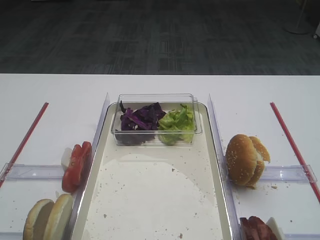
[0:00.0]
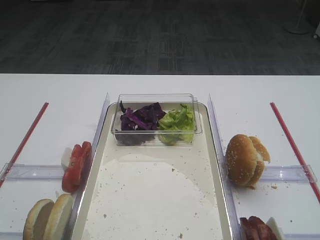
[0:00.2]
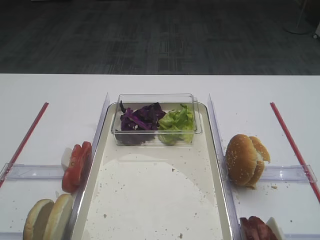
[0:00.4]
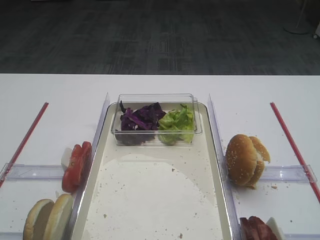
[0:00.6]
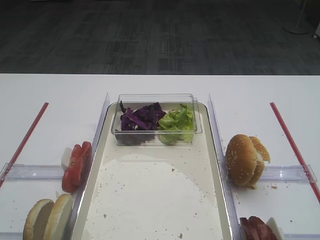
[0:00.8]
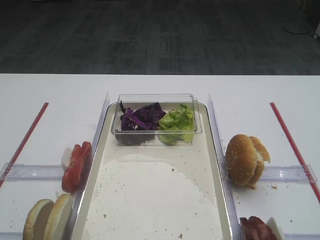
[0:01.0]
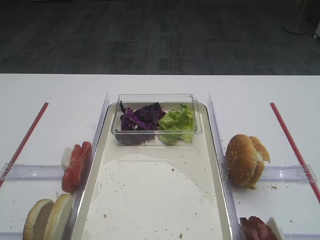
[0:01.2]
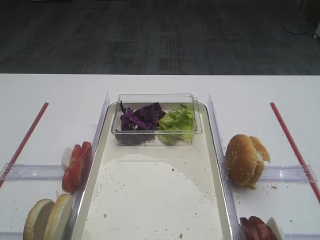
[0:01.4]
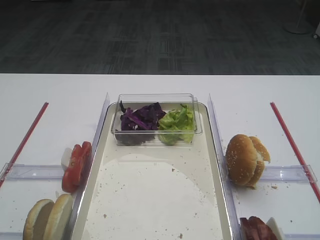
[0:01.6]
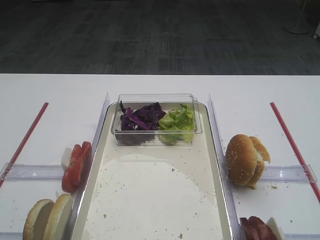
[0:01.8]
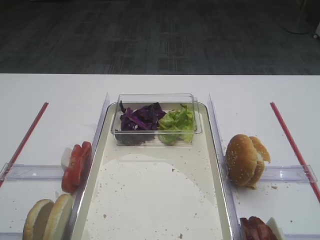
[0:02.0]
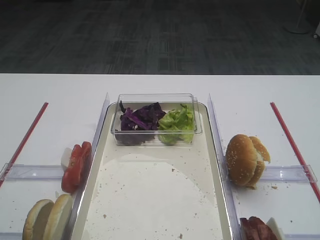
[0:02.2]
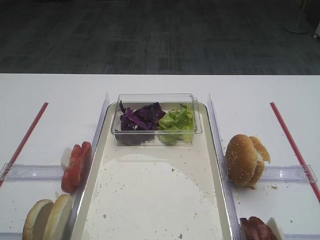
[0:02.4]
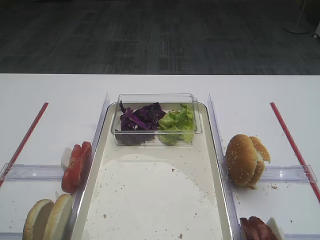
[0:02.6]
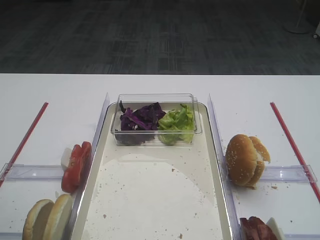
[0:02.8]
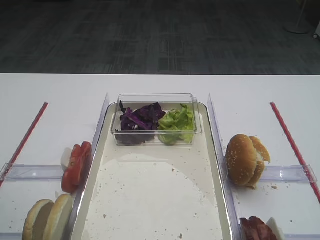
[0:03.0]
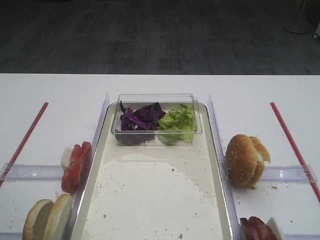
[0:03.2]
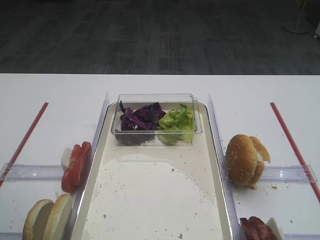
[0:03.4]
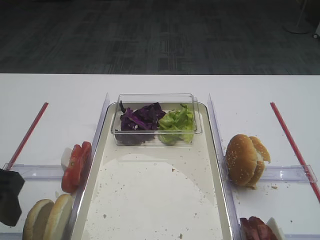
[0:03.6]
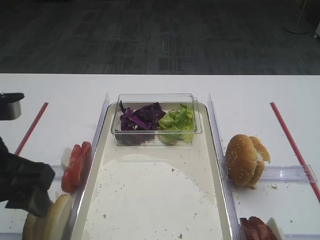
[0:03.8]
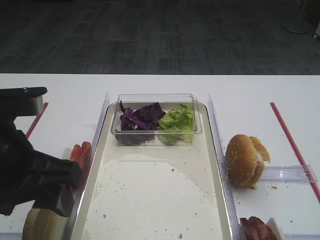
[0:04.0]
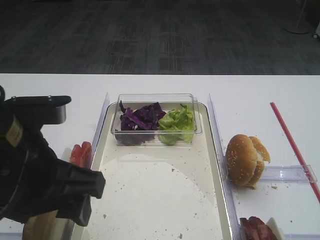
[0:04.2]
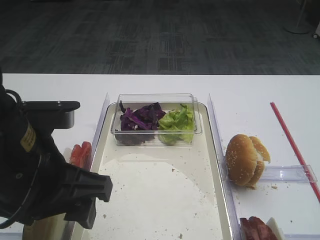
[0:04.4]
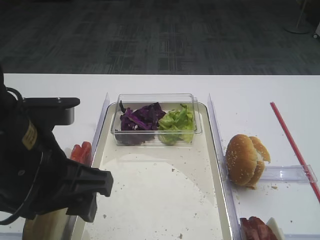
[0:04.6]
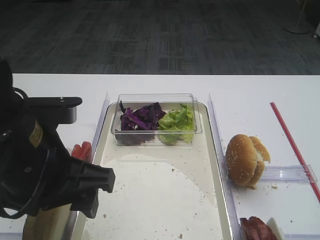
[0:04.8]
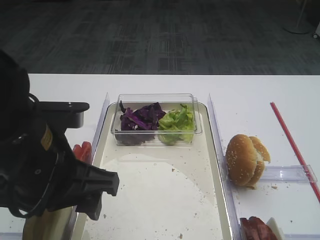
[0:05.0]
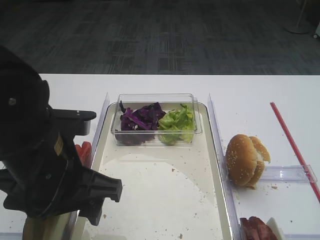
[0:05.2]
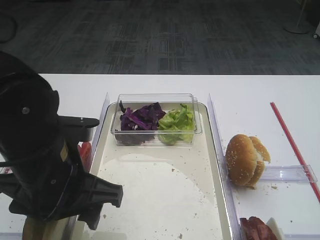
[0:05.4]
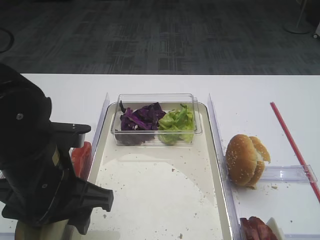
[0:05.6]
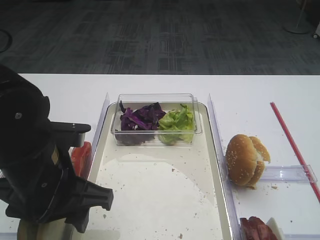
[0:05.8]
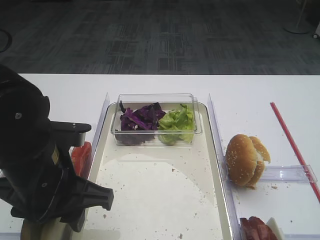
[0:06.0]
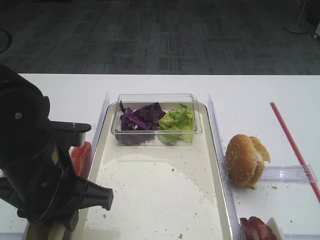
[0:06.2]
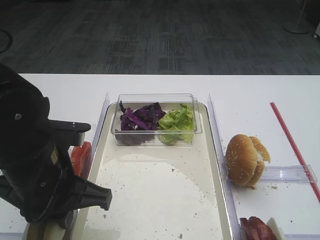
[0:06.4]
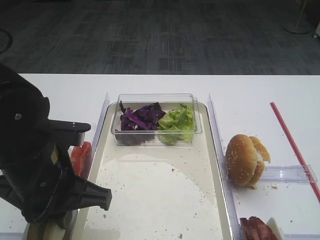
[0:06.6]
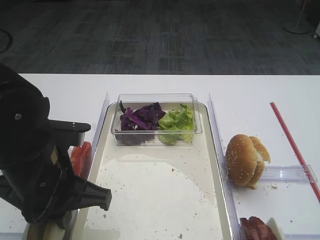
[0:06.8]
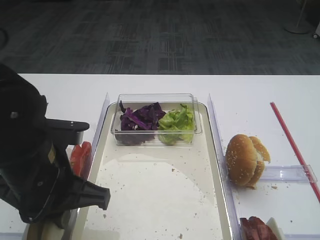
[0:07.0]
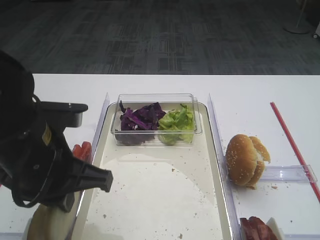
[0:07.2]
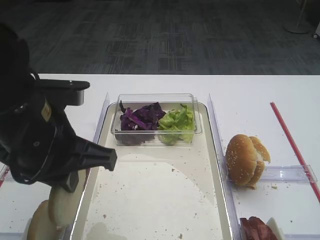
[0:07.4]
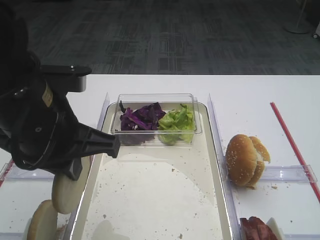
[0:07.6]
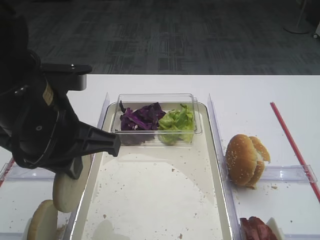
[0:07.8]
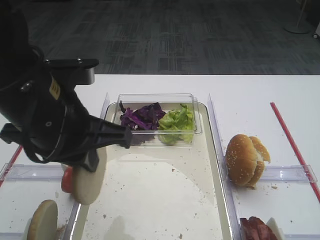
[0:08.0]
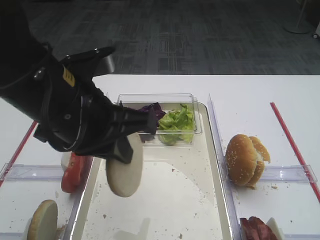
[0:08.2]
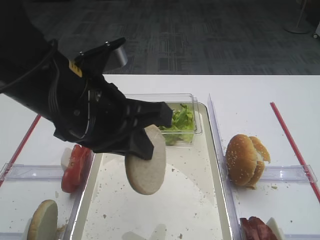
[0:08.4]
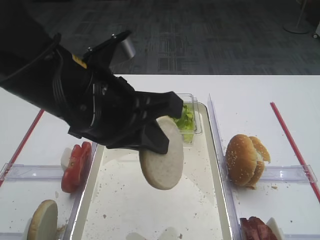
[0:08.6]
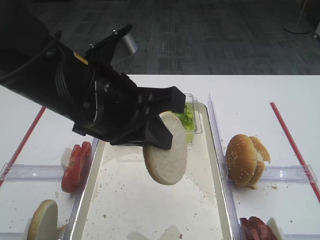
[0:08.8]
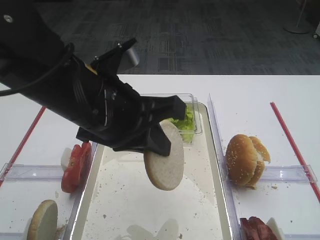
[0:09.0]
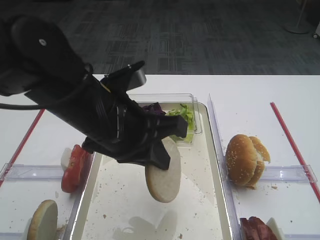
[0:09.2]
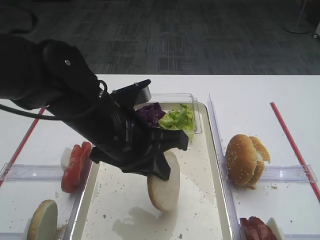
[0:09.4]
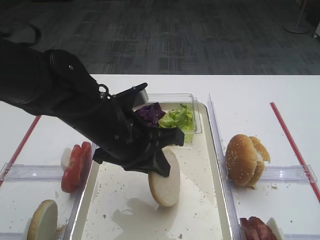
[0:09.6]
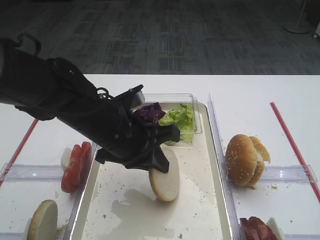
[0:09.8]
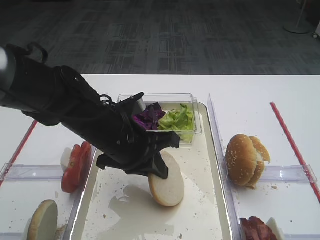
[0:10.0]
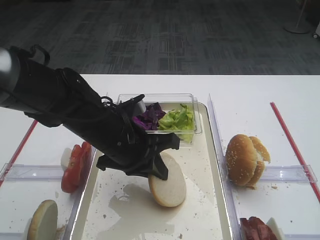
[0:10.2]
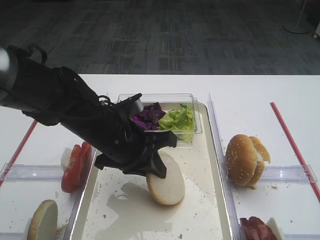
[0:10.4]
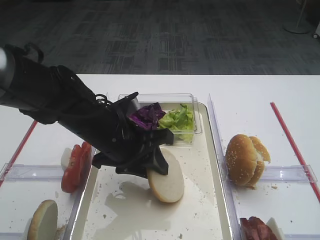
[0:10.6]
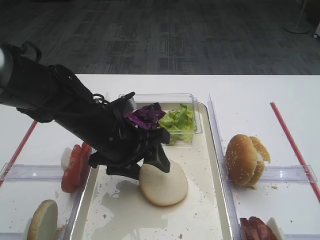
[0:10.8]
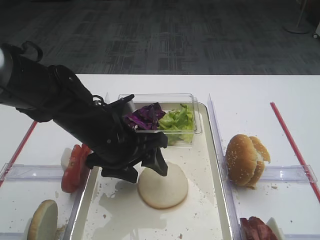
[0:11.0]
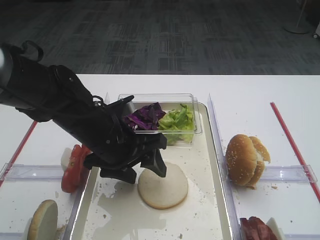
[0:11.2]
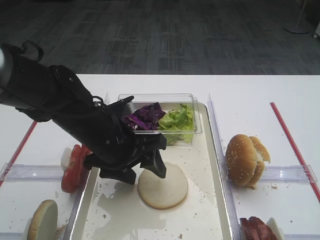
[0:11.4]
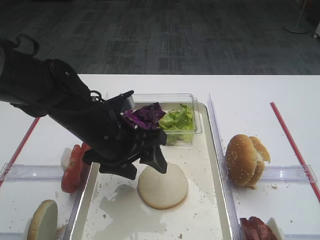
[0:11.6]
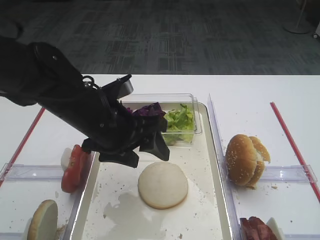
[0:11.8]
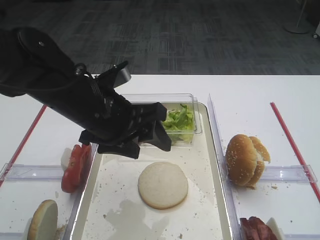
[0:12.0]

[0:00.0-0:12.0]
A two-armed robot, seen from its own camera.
Step, 0.0 to 7.6 s: Pick up the bread slice with the left gripper.
3.0 to 4.4 s: The left gripper shifts about 15 cm to the right.
4.4 to 6.0 s: The left gripper goes some 5 cm downward, and closes up.
6.0 to 7.6 s: The left gripper is displaced upward by some 5 cm, and closes up.
7.6 to 9.0 s: The left gripper goes some 5 cm to the right.
9.0 to 10.4 s: The left gripper travels downward and forward by some 15 cm.
10.4 to 12.0 s: The left gripper heads upward, covering some 5 cm, and opens up.

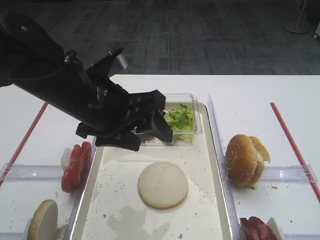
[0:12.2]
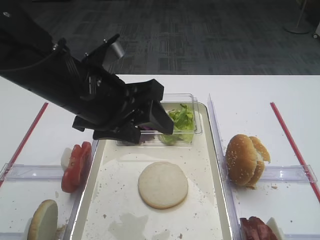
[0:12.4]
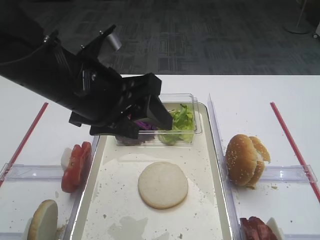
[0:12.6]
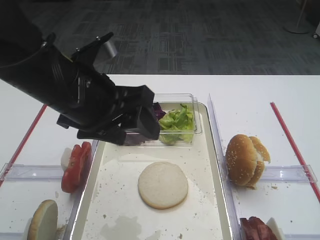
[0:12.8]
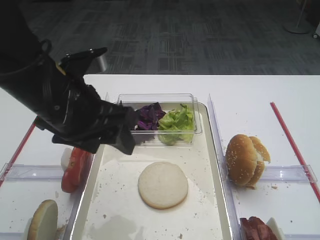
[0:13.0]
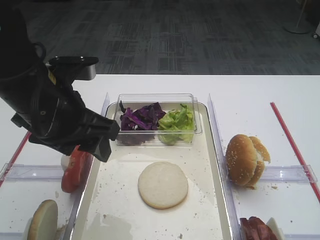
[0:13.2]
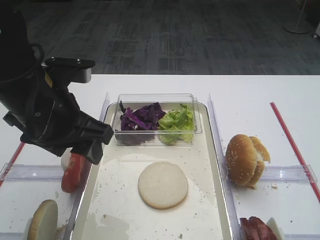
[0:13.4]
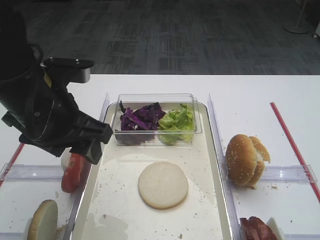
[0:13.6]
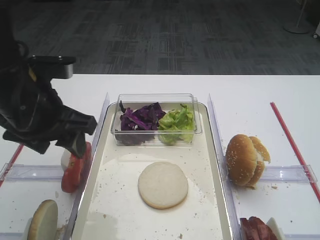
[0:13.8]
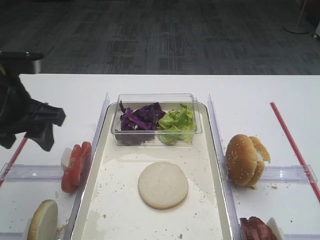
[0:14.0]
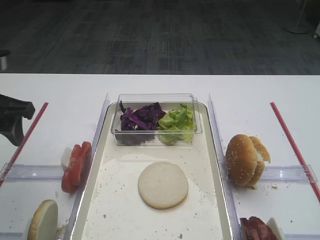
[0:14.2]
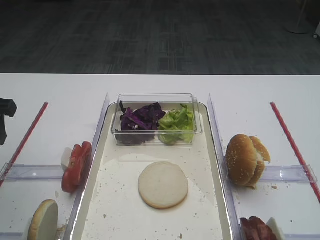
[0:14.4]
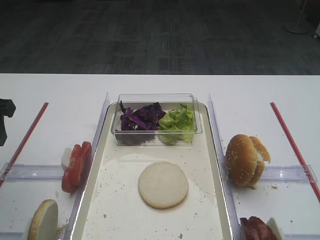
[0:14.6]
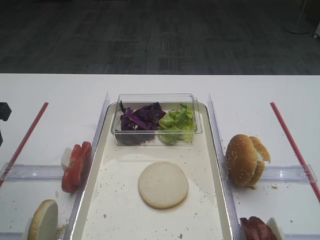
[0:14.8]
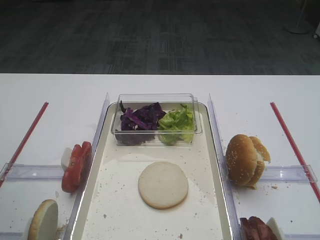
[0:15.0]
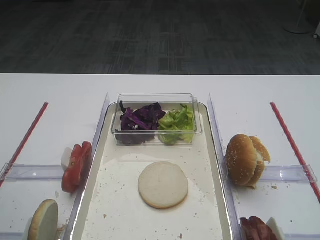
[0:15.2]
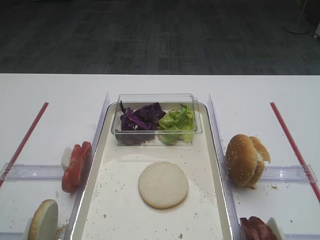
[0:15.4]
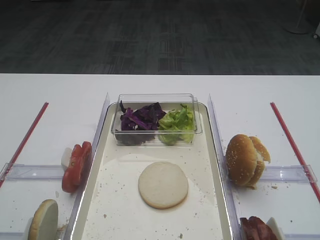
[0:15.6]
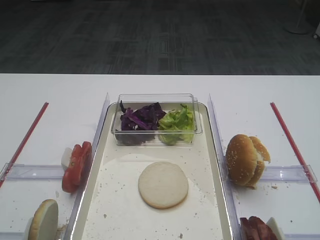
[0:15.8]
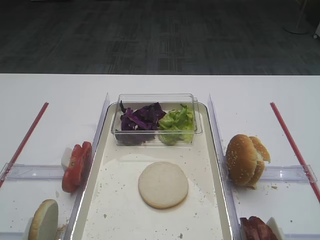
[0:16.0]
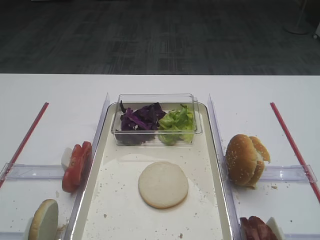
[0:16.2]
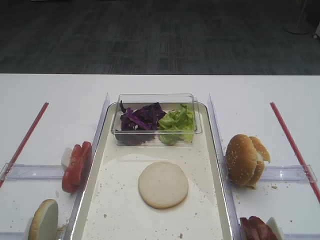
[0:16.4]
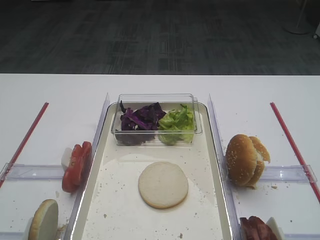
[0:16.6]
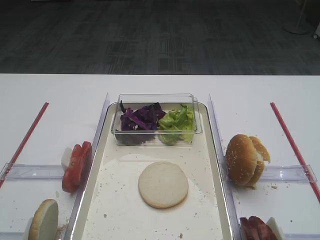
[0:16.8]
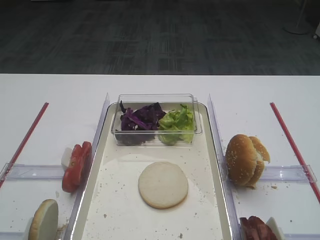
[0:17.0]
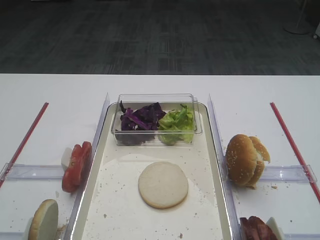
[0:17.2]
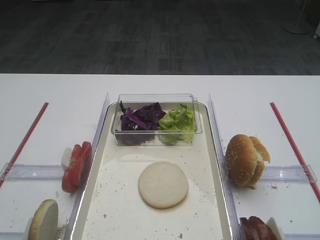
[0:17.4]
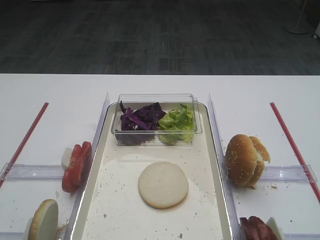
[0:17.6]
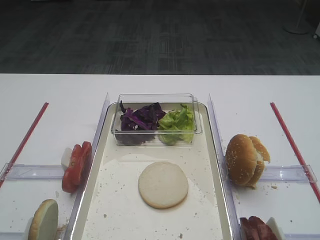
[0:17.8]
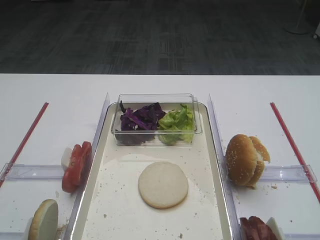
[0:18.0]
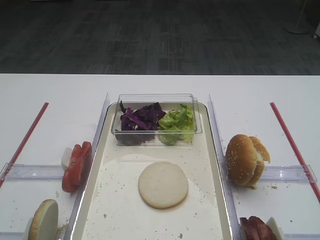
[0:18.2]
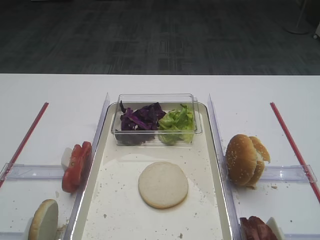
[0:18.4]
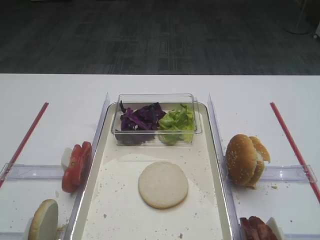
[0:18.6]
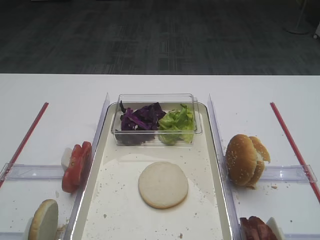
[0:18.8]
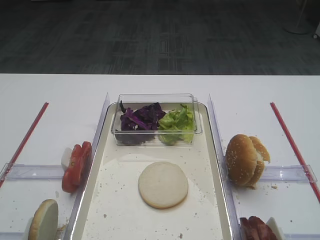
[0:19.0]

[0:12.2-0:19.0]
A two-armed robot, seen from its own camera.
12.2 to 13.6 s: The left gripper moves to the left, approximately 5 cm.
13.6 to 15.0 s: The left gripper shifts some 15 cm to the left.
15.0 to 16.2 s: The left gripper heads backward, covering roughly 20 cm.
17.6 to 19.0 s: Neither gripper changes place.

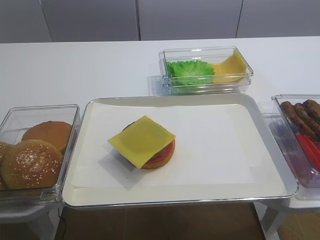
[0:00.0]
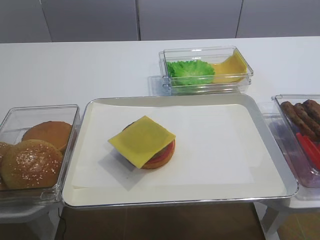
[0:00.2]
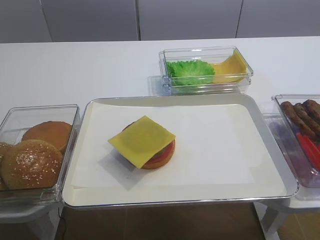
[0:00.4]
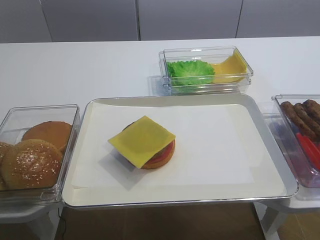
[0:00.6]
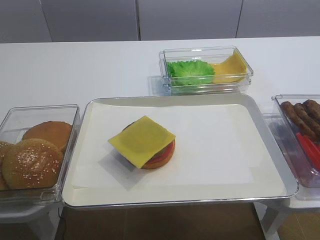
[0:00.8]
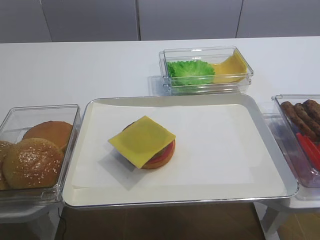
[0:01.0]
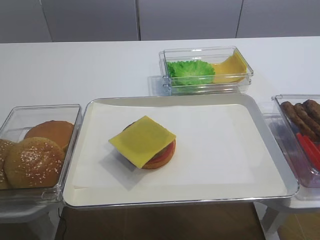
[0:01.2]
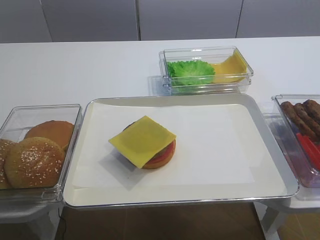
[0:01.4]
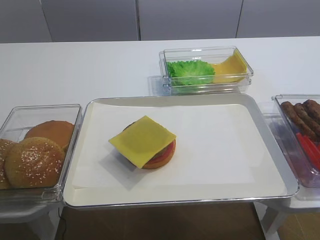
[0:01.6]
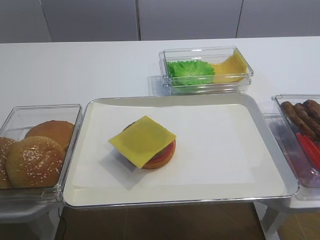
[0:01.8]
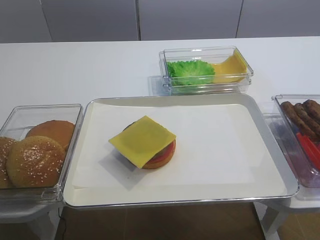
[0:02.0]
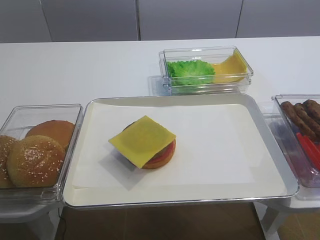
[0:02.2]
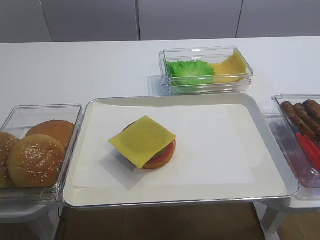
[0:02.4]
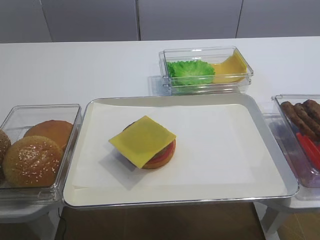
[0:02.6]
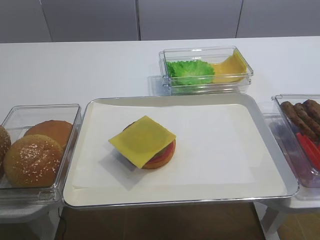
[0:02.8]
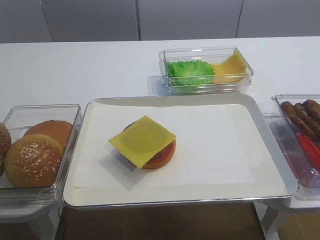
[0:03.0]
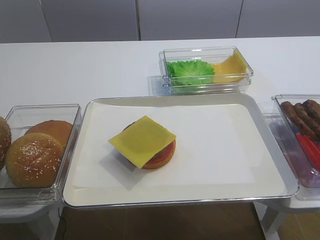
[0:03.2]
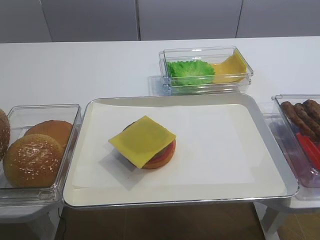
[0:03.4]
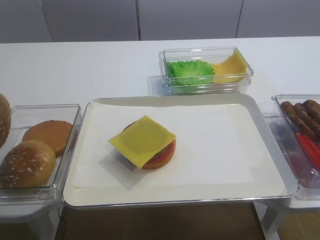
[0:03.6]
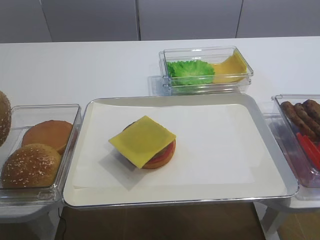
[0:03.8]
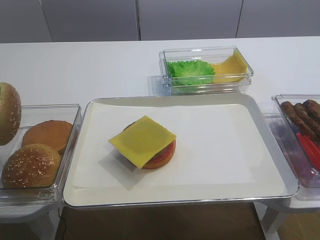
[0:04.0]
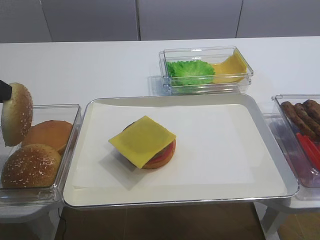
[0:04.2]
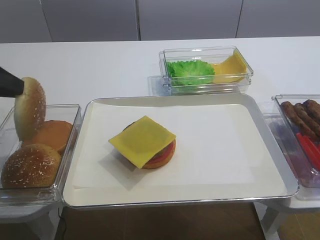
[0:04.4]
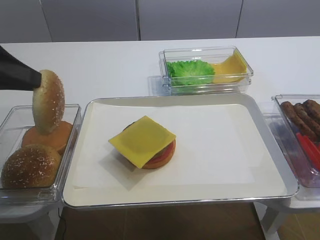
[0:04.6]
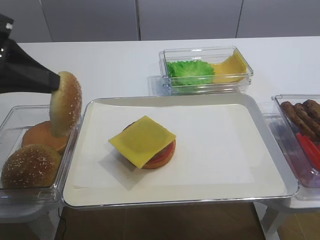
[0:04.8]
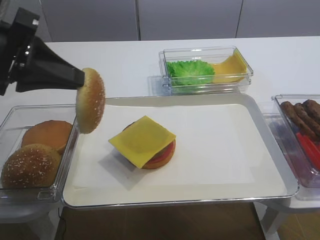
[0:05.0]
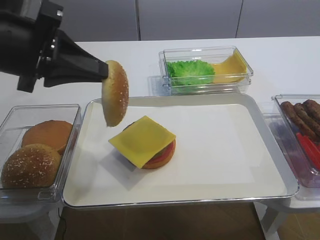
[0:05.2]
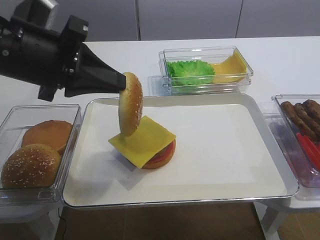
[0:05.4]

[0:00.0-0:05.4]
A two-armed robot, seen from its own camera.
Step, 0.0 to 3.4 s: Pick up the hamburger lid with the left gripper.
0.0 to 1.4 s: The left gripper closes up.
1.4 to 2.8 s: The grippers move only a little.
2.8 to 4.0 s: There are only small adjustments of the grippers.
4.0 to 5.4 s: The left gripper moves to the right, approximately 15 cm.
